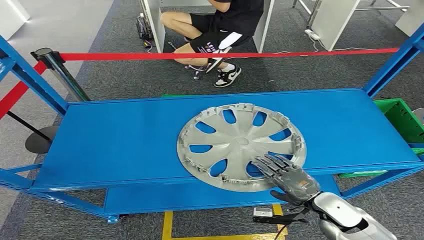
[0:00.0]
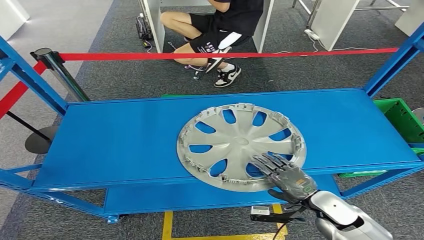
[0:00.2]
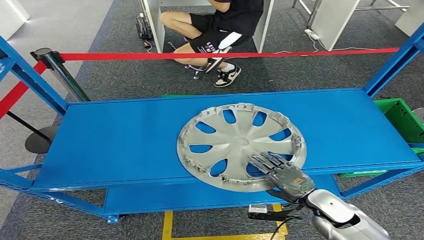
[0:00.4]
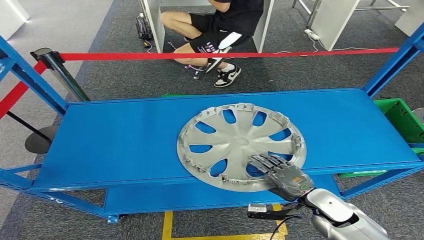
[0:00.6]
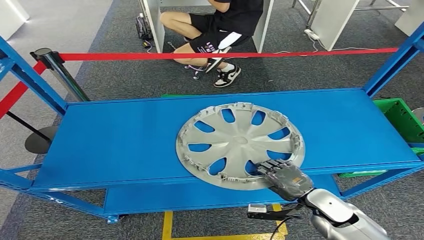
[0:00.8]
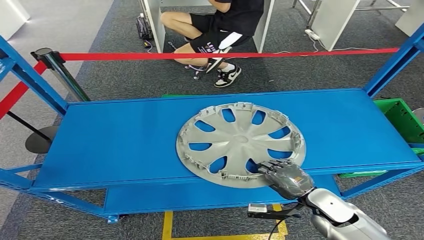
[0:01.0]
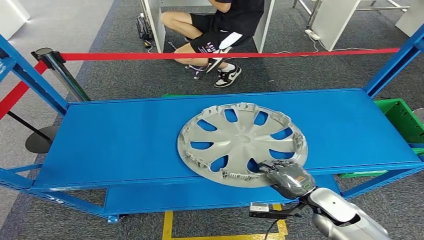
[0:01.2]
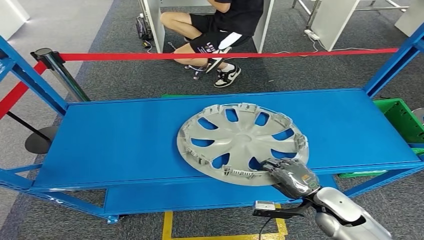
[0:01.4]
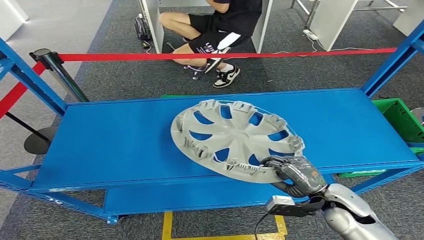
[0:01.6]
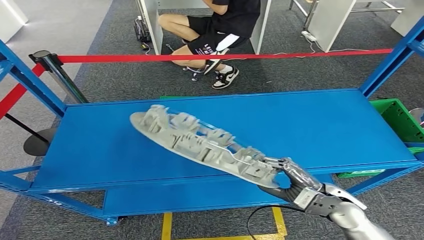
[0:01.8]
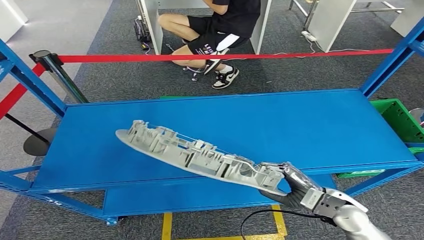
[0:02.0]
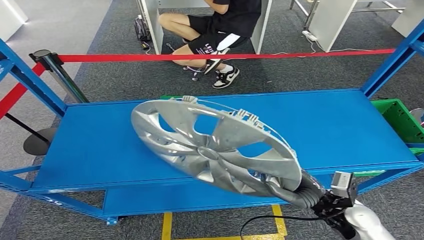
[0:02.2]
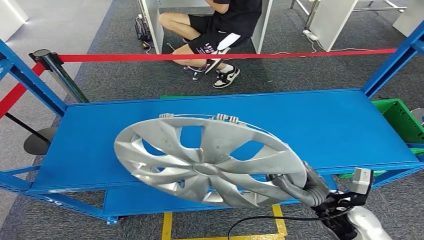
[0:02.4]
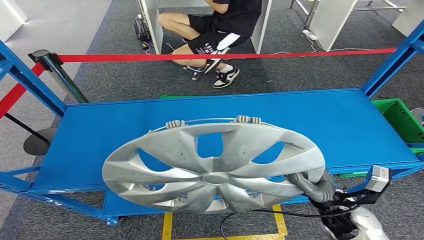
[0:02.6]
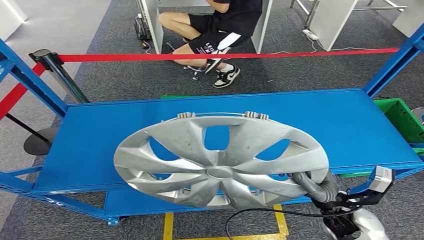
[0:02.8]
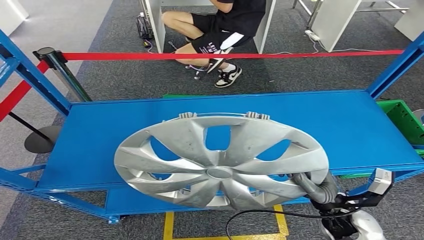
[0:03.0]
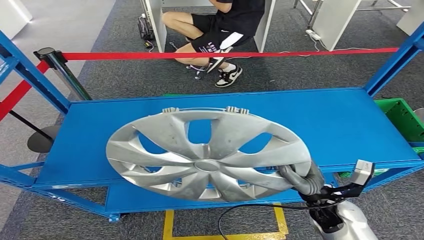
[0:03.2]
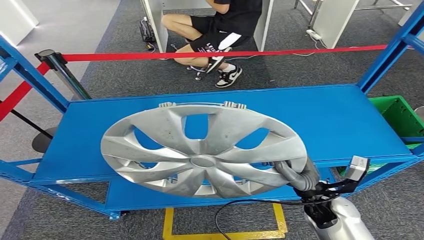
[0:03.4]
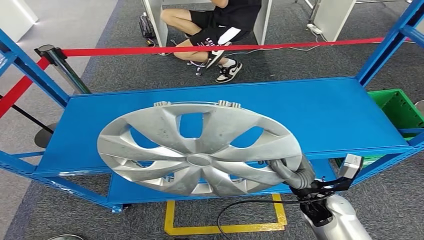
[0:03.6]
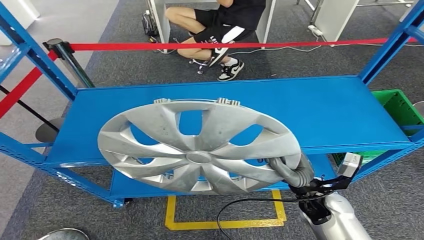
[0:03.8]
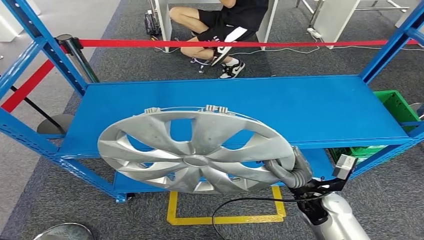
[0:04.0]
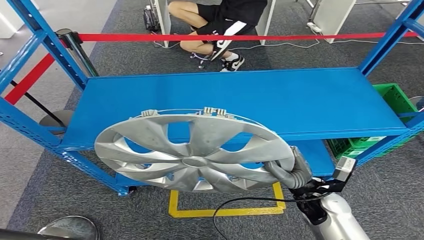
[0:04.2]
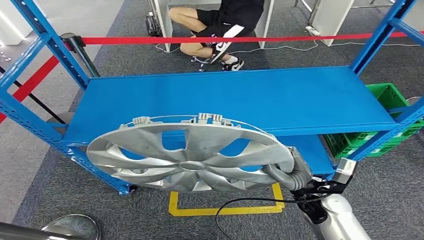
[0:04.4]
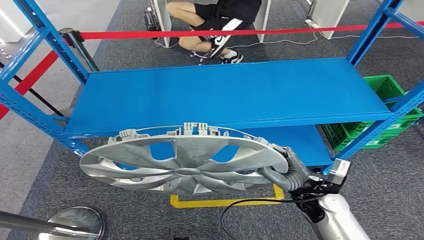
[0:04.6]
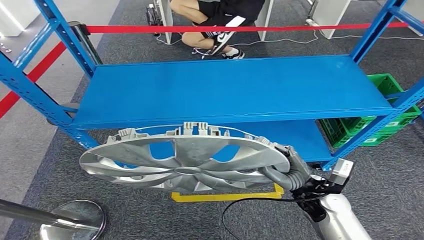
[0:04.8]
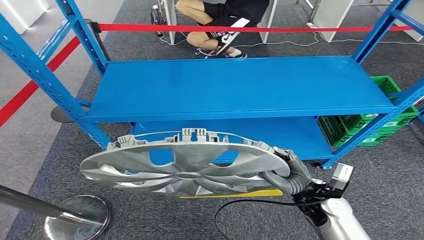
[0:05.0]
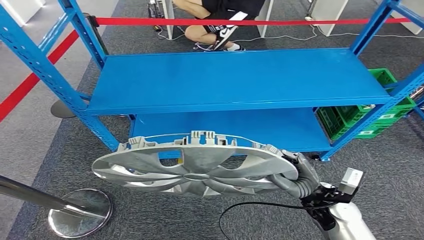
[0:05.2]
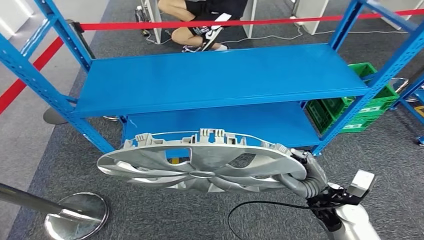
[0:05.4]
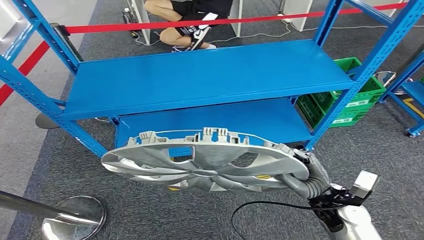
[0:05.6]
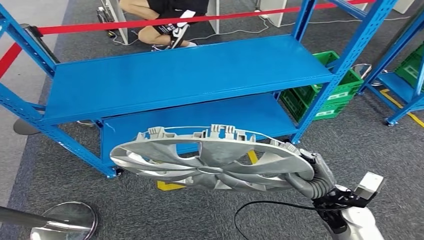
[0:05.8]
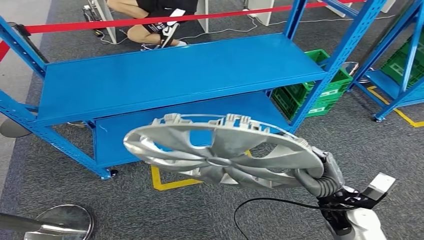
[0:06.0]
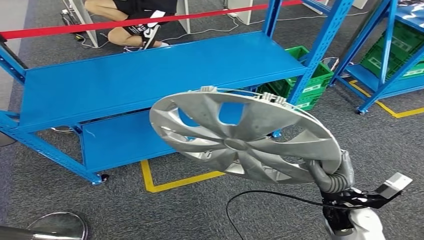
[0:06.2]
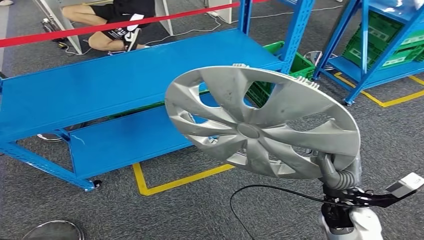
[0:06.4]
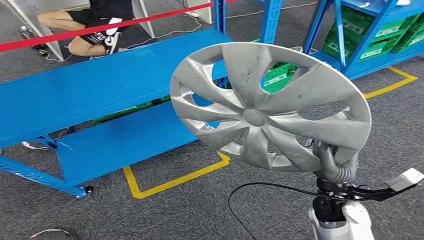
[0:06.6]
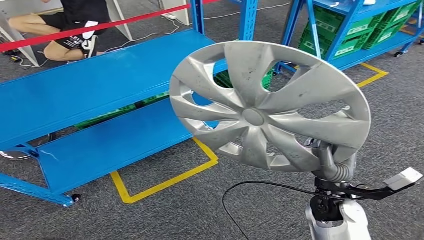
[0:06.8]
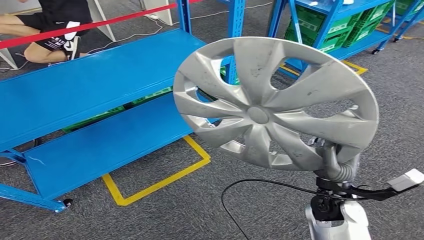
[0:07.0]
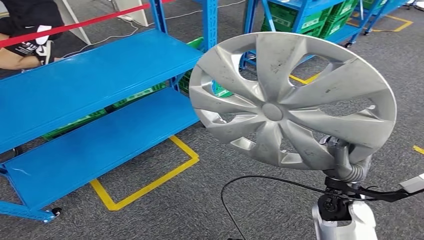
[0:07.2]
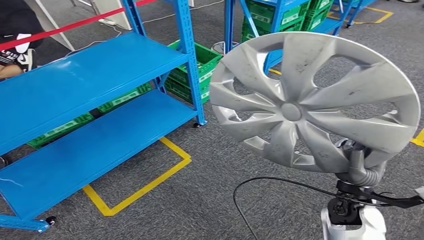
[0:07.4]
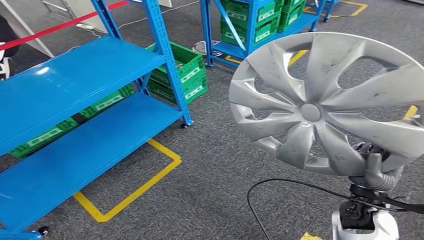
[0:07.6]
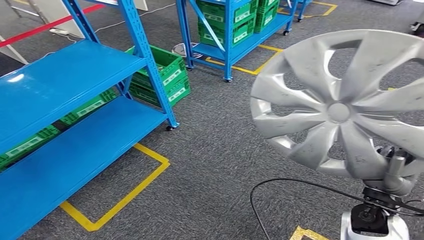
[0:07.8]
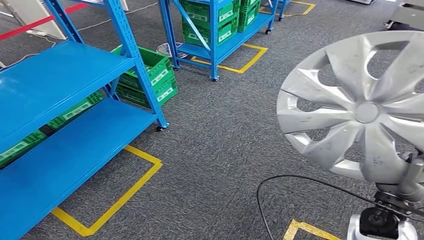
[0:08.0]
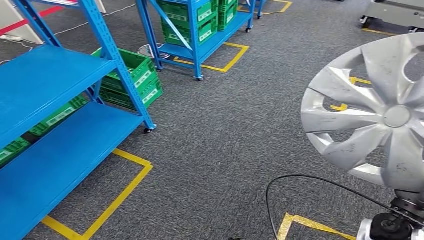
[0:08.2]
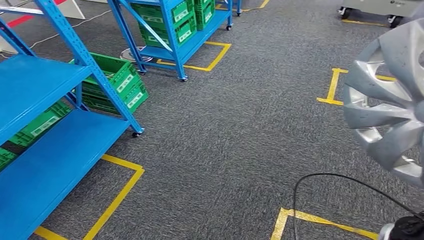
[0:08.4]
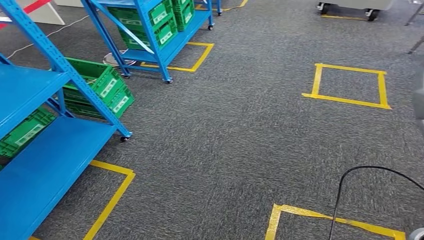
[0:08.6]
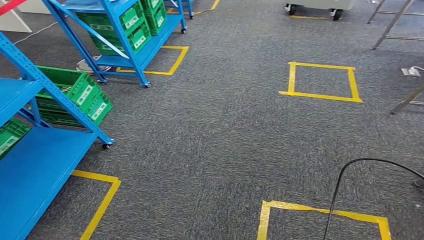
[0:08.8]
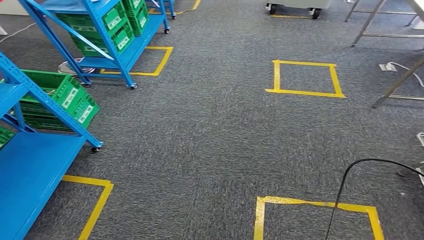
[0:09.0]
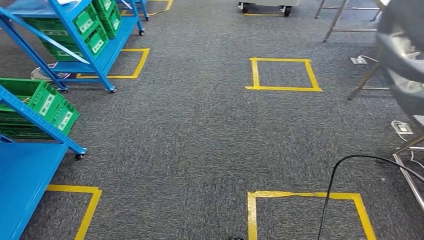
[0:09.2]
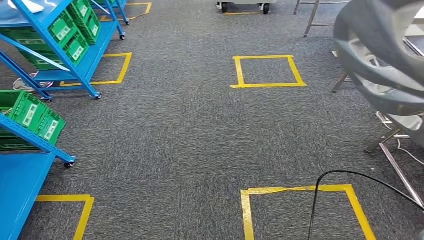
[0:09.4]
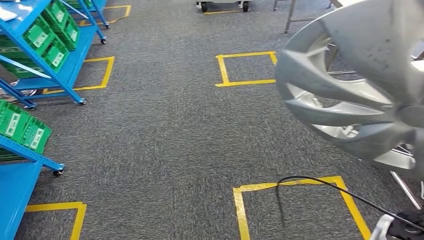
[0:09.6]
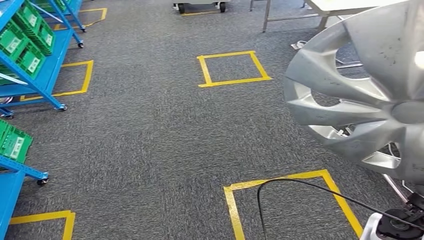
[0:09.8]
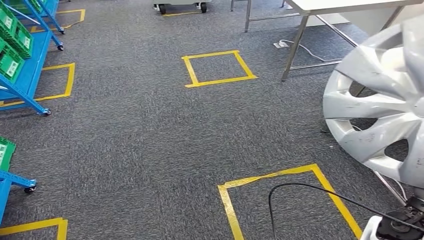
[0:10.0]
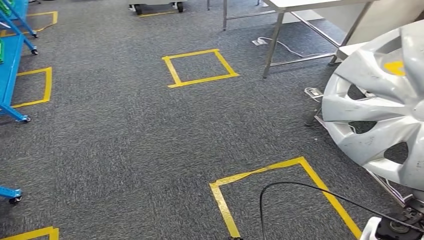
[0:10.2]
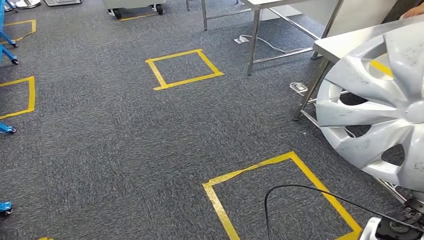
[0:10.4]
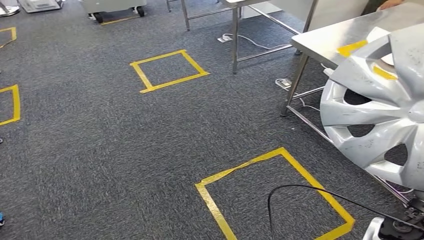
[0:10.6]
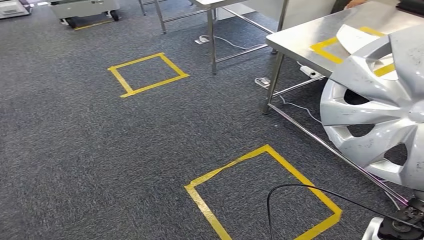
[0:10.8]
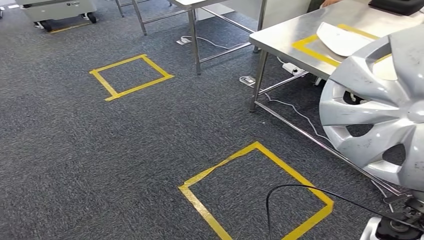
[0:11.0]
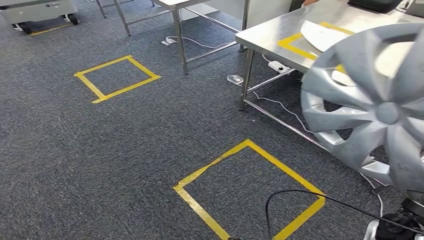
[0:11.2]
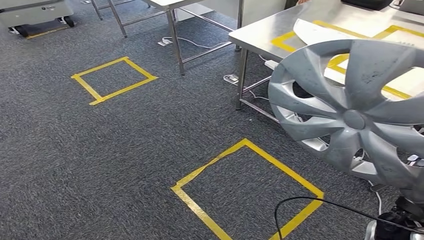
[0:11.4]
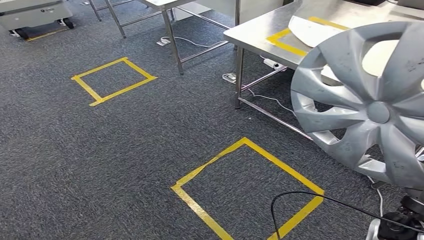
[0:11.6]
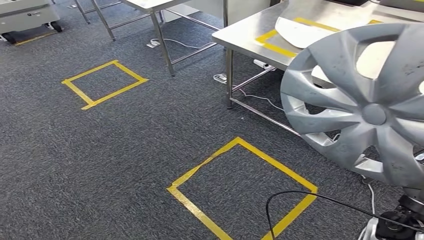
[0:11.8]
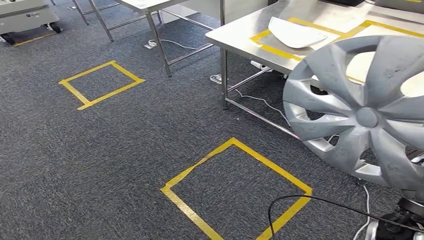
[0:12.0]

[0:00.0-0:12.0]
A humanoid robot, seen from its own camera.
Step, 0:00.0 to 0:04.2: Pick up the small parts from the shelf.

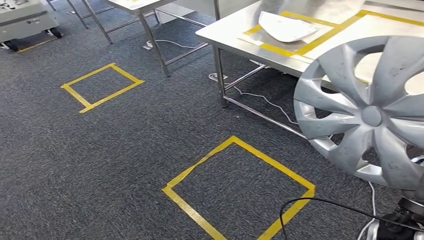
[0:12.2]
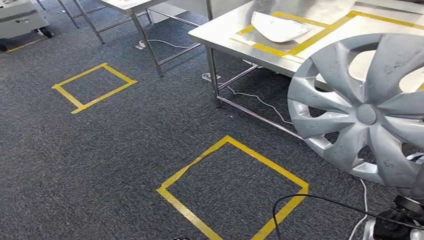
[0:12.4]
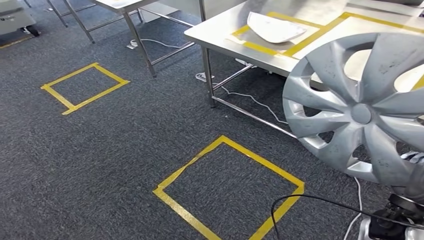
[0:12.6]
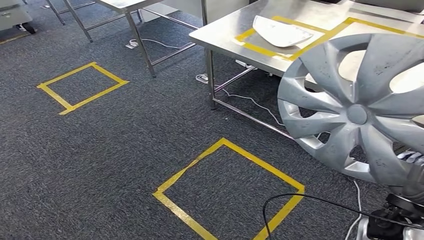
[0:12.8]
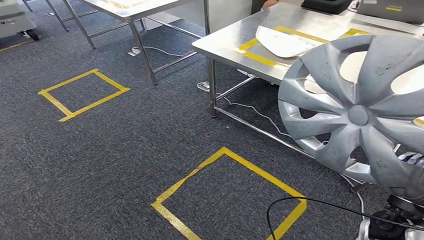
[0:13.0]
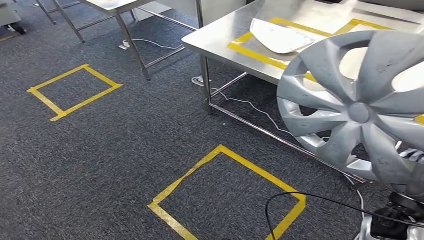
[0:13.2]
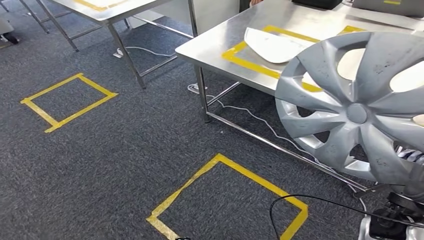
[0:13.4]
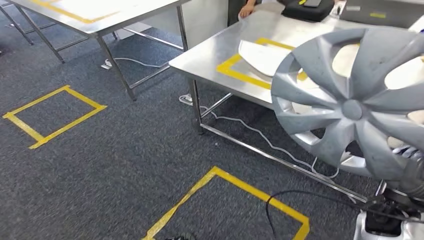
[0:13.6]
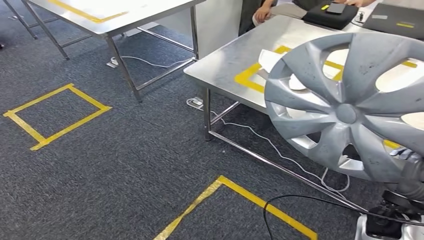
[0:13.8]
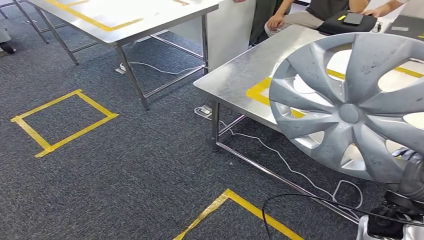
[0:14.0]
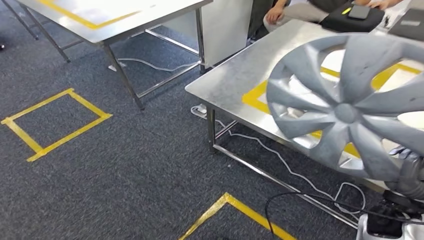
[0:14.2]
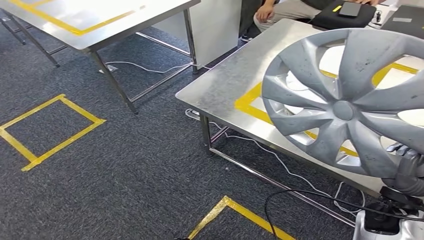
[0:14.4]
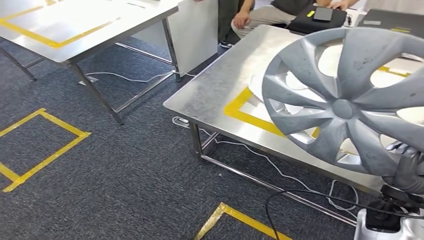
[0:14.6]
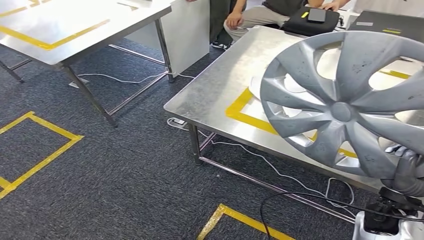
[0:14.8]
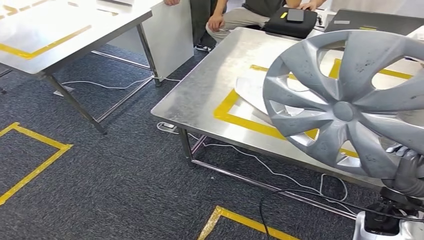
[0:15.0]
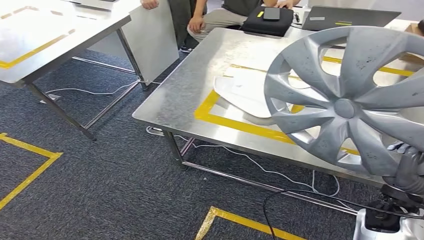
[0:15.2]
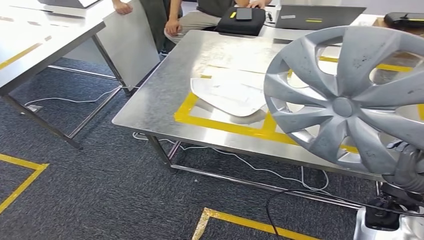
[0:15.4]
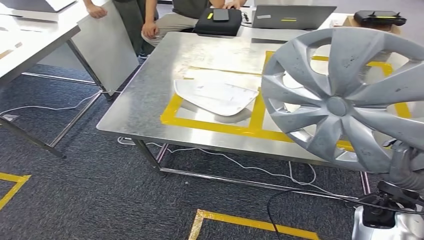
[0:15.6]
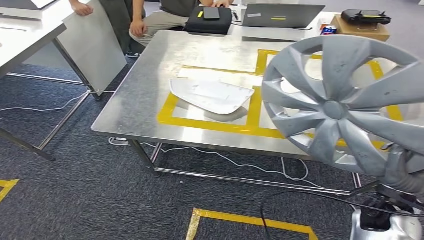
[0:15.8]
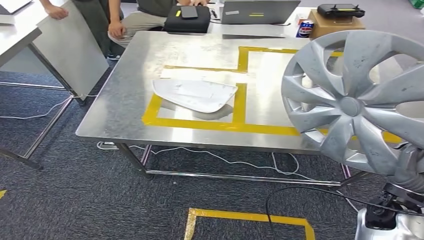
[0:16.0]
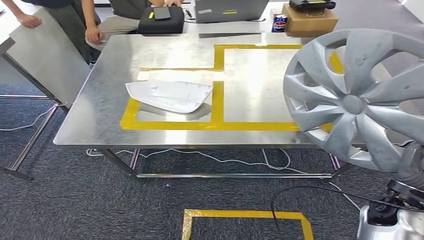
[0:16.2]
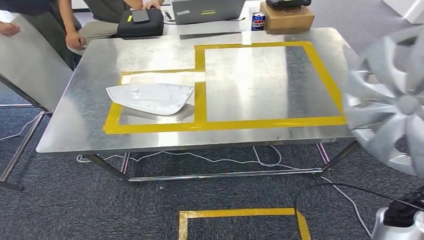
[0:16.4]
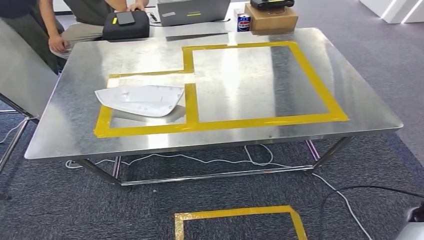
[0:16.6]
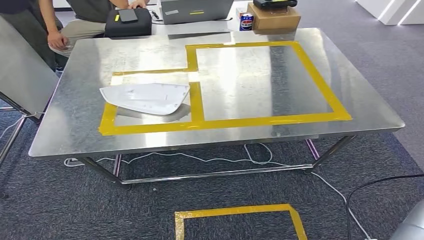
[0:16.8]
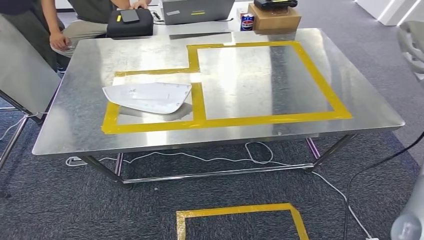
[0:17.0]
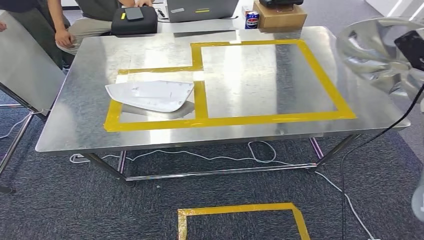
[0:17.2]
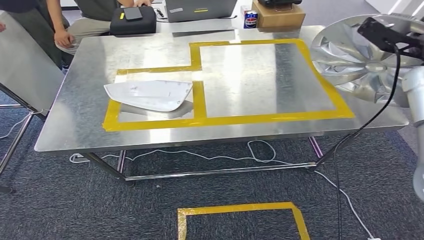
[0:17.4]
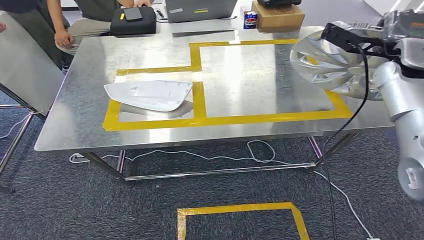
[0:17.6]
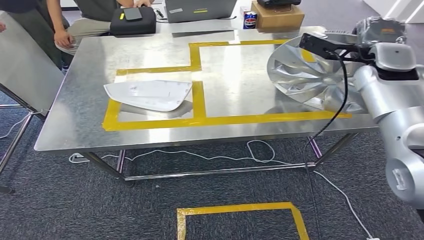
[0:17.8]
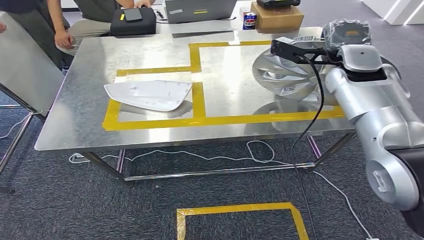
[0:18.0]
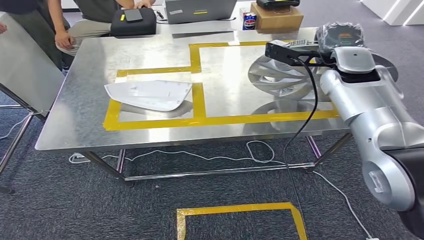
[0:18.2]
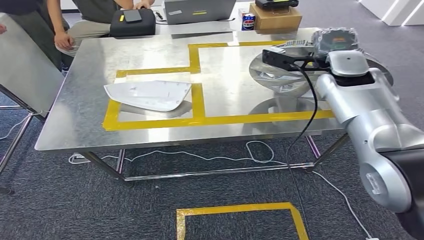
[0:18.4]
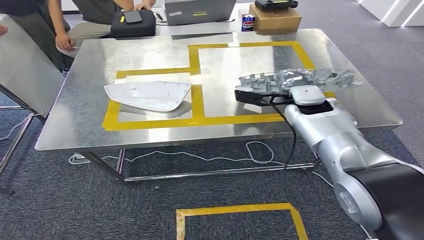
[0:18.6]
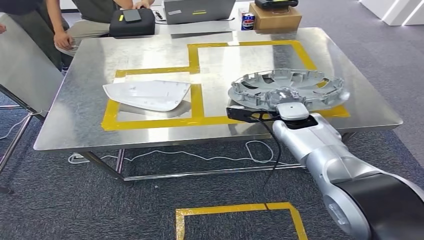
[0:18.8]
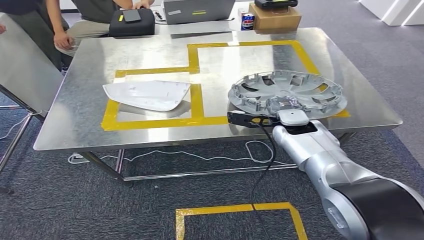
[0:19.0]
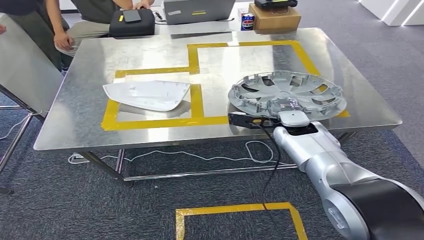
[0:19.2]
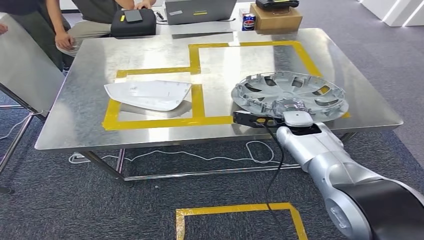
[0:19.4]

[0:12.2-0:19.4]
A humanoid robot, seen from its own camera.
Step, 0:12.2 to 0:14.4: Move the small parts to the workbench.
